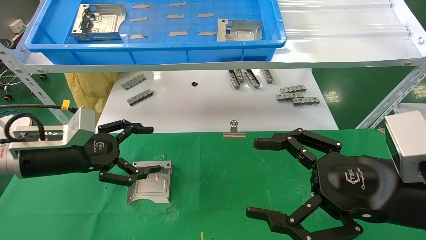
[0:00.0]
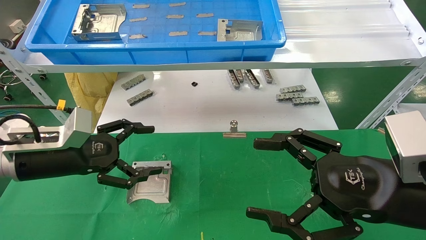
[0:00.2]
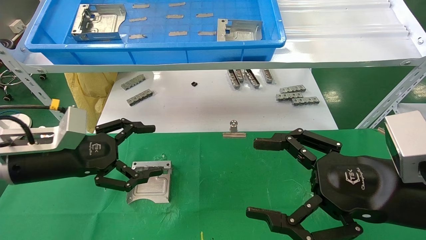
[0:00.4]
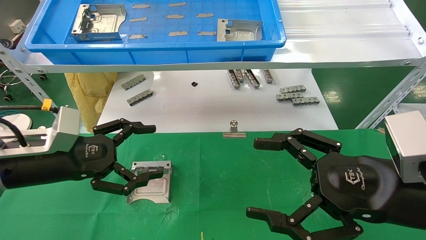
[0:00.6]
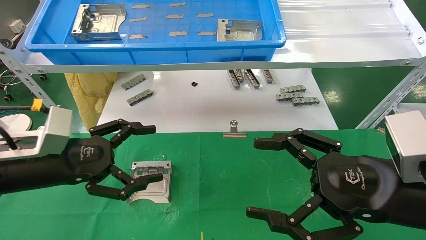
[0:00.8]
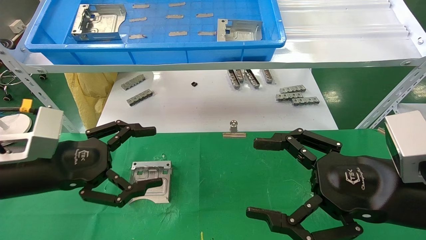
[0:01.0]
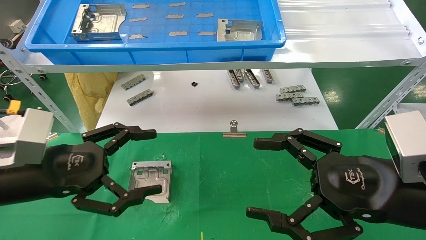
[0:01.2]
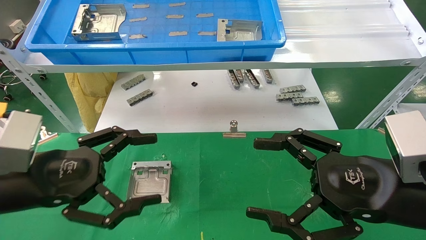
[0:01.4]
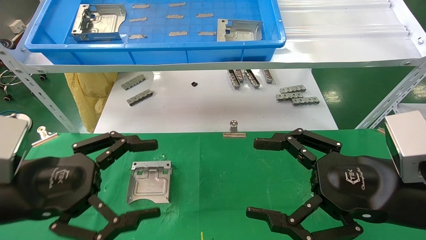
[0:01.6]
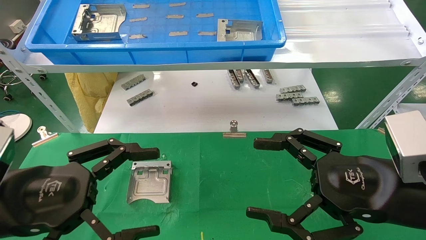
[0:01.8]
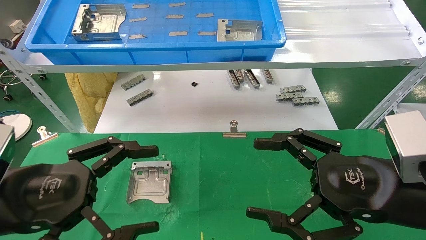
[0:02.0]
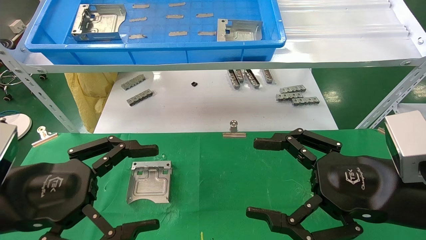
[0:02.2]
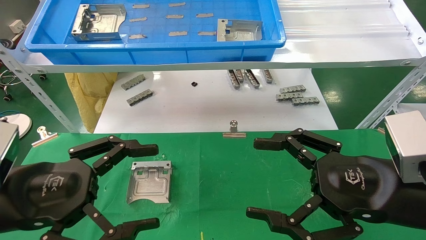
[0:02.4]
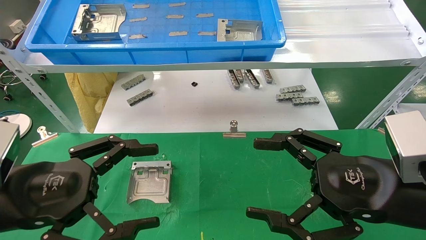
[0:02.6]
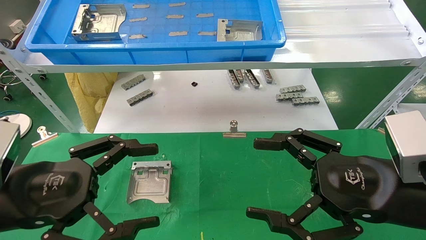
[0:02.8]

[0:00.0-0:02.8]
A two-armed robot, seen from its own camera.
Task of the whole recording: use the mechanical arm to pick up the parts and place them on the table.
0:00.0 to 0:01.4: The left gripper travels backward by about 10 cm.
0:01.4 to 0:02.8: The grippers move only a little.
